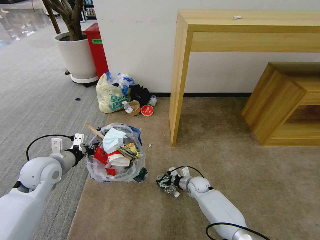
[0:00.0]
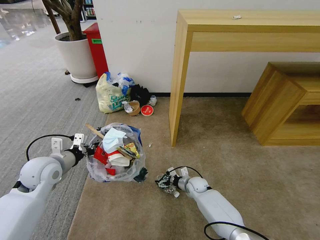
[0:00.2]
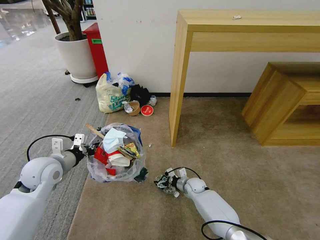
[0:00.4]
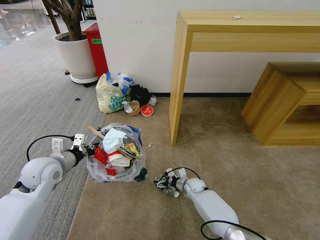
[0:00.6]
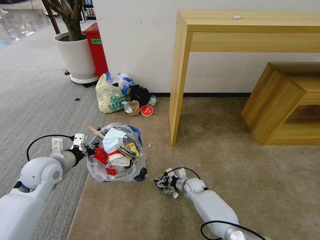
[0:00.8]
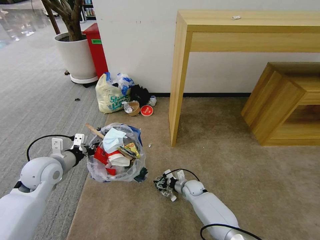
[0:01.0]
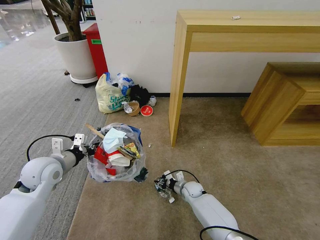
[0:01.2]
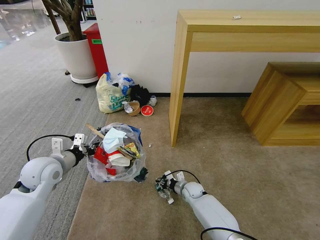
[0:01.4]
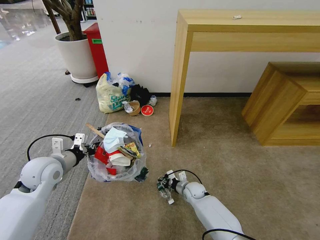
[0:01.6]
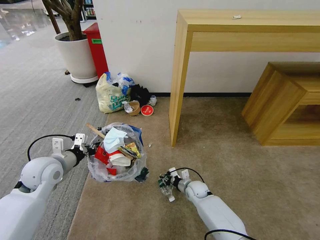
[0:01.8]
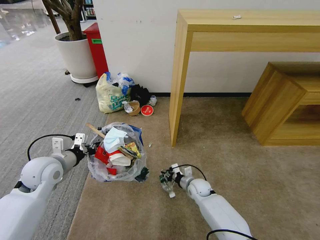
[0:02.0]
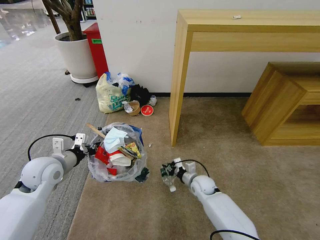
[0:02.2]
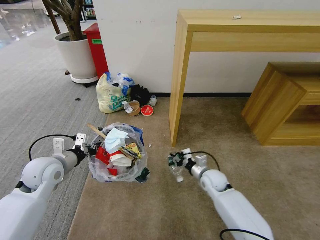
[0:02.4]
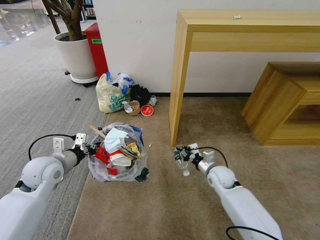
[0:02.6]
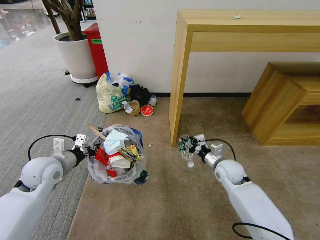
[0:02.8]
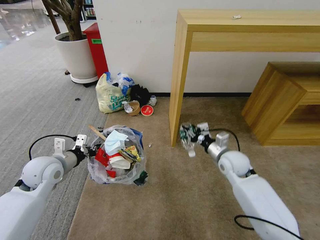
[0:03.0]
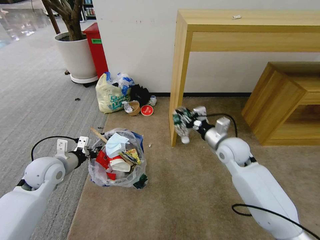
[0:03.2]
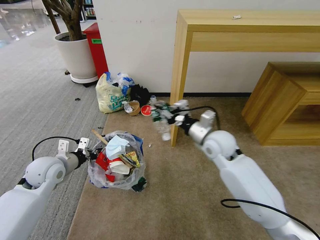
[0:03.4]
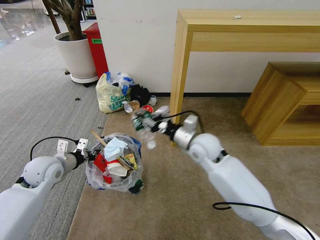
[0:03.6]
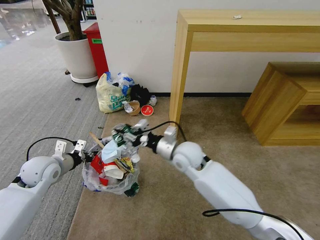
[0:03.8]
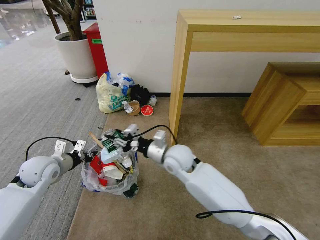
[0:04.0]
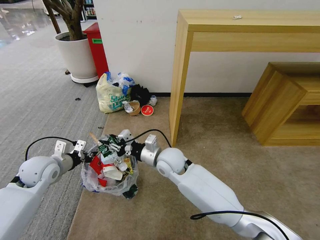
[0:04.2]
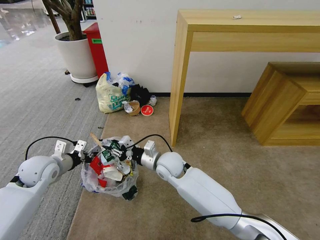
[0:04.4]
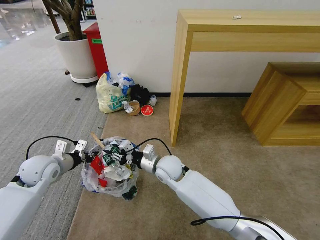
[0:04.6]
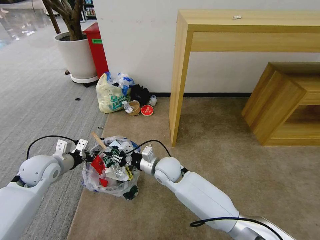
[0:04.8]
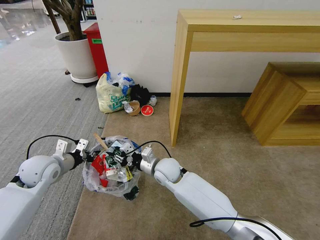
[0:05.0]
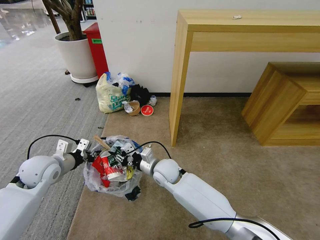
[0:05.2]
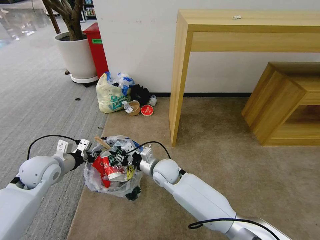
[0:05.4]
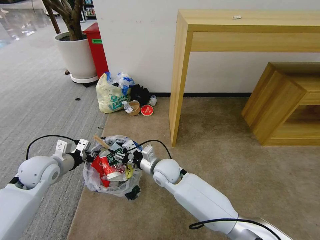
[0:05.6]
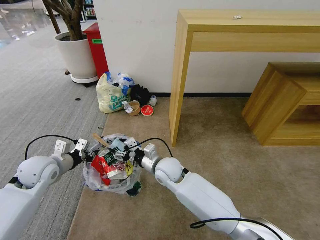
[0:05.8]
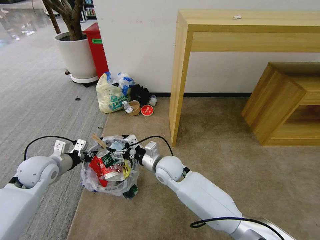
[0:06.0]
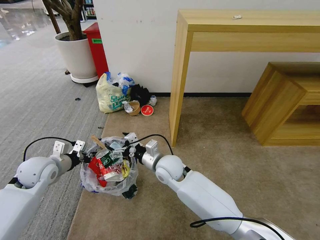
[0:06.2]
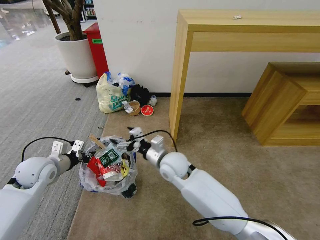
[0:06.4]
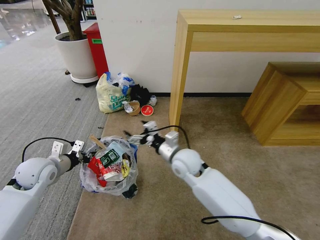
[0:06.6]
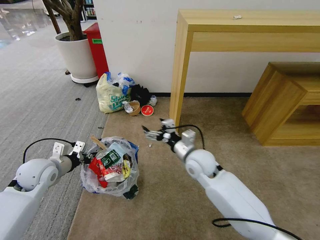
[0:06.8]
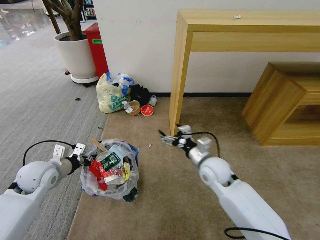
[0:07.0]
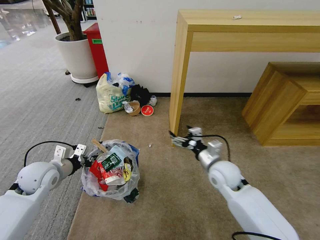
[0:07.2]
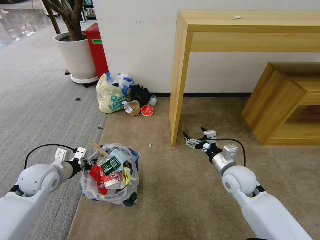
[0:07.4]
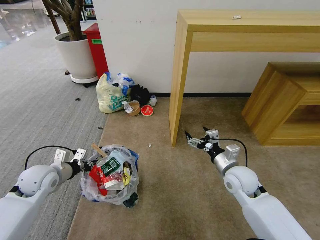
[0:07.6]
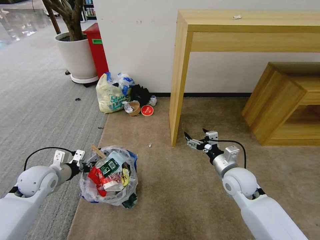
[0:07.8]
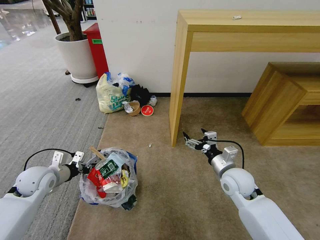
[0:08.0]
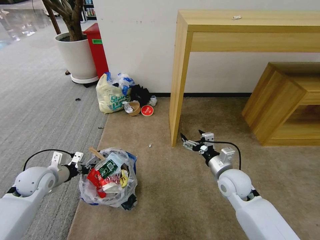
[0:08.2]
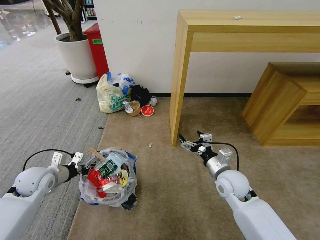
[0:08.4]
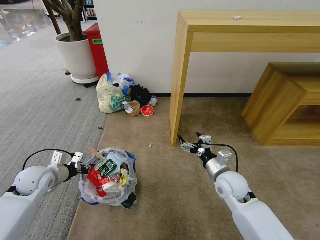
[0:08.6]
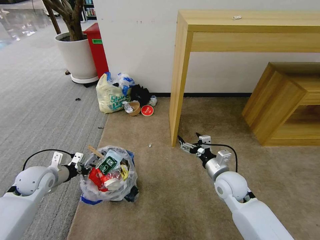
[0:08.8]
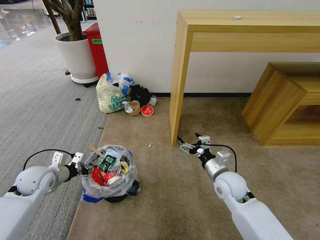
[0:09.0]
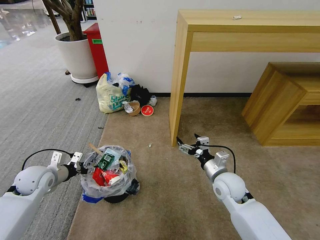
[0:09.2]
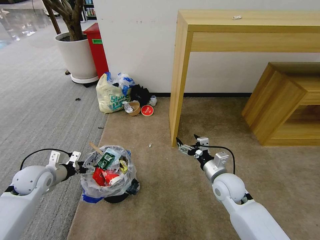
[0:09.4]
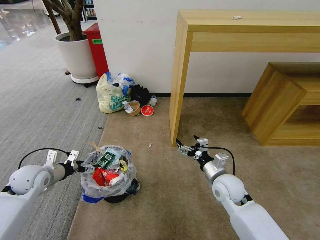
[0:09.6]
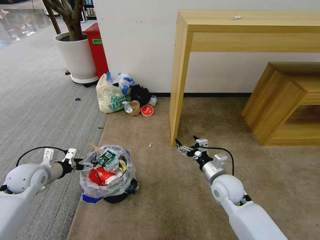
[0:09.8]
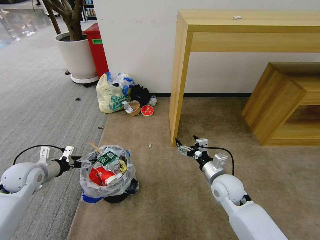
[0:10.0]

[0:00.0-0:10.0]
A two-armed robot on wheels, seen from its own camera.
Task of the whole recording: Pick up the trash bin and place the garbage on the floor into it.
0:00.0 to 0:01.4: The right gripper closes up.
0:01.4 to 0:02.8: The right gripper heads upward and to the right, covering approximately 20 cm.
0:02.8 to 0:04.2: The right gripper shifts some 25 cm to the left.
0:04.2 to 0:05.8: The right gripper opens.
0:05.8 to 0:07.2: The right gripper travels to the right by some 20 cm.
0:07.2 to 0:08.6: The grippers make only small movements.
0:08.6 to 0:10.0: The left gripper opens.

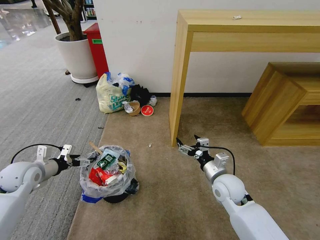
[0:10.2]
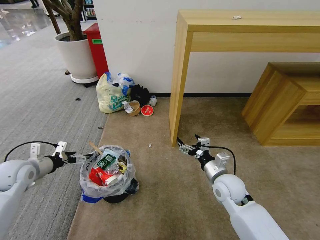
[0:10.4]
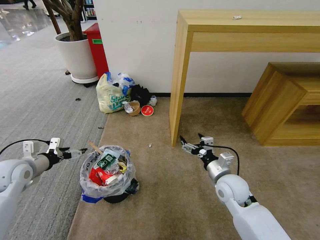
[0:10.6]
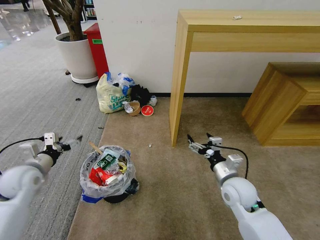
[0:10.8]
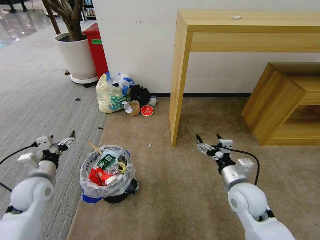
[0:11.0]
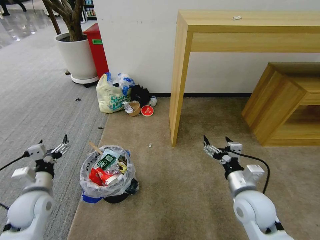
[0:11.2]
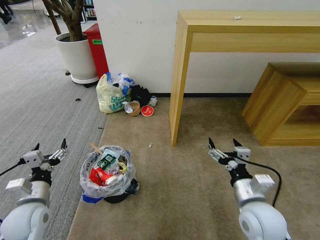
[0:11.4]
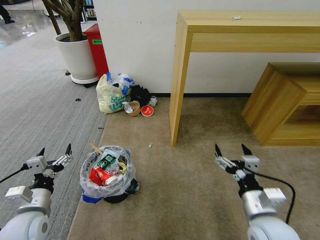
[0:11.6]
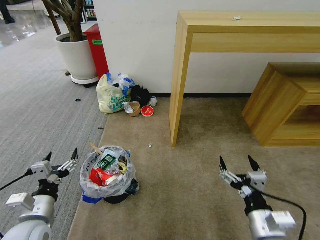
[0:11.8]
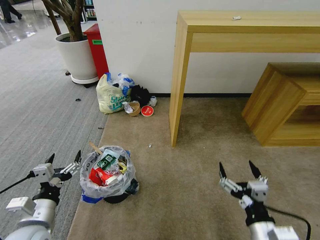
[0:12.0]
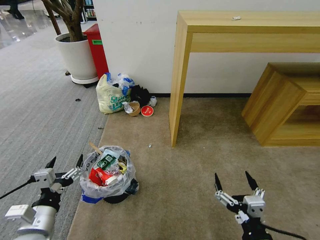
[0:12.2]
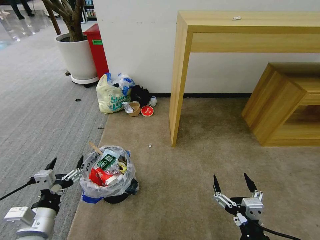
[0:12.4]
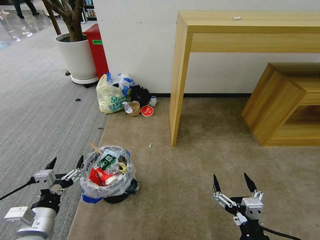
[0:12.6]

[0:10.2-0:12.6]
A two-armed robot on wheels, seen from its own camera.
Task of the whole recording: Pick up the trash bin and place the garbage on the floor into it.
0:10.2 to 0:11.4: The right gripper is displaced backward and upward by approximately 10 cm, while the left gripper shifts approximately 15 cm backward and to the right.
0:11.4 to 0:12.6: The right gripper is displaced backward by roughly 15 cm. The left gripper goes some 10 cm backward and to the right.
